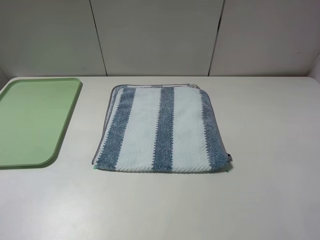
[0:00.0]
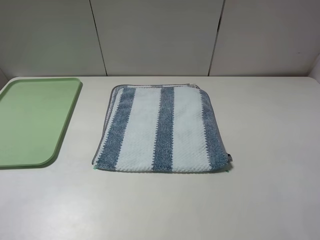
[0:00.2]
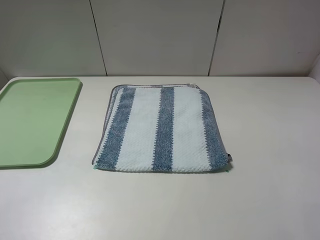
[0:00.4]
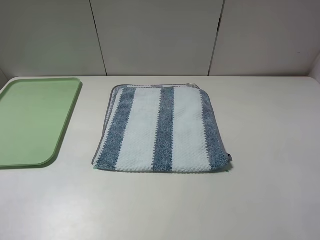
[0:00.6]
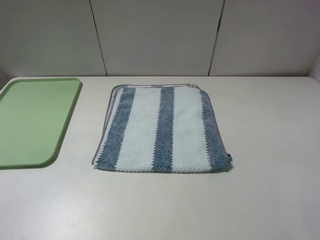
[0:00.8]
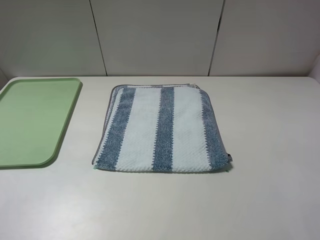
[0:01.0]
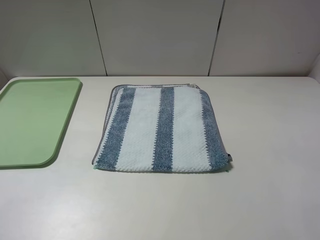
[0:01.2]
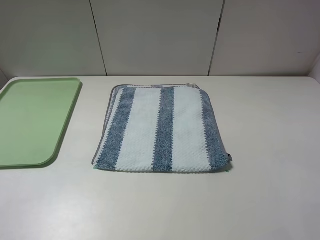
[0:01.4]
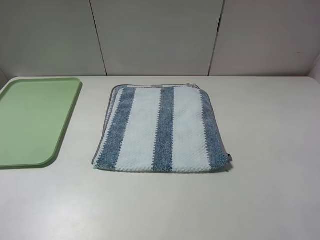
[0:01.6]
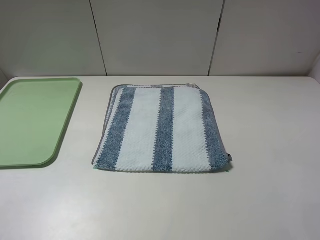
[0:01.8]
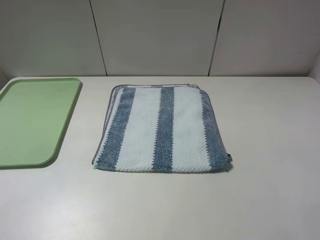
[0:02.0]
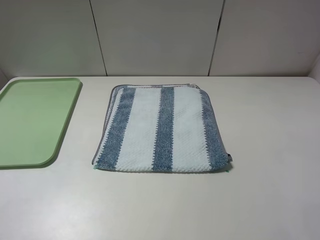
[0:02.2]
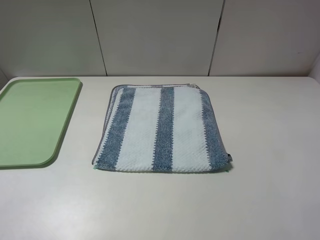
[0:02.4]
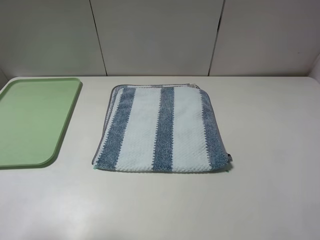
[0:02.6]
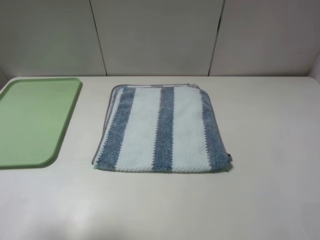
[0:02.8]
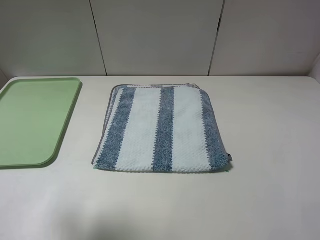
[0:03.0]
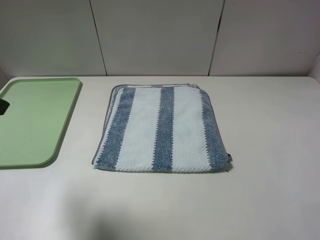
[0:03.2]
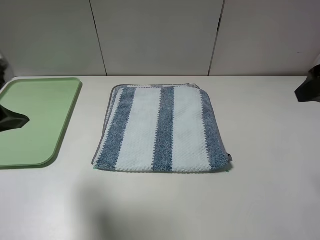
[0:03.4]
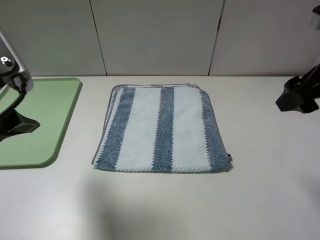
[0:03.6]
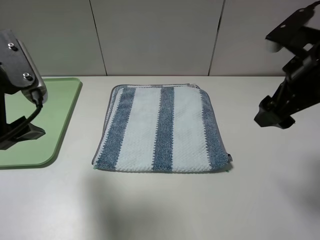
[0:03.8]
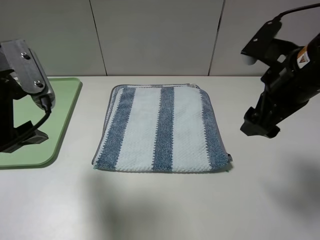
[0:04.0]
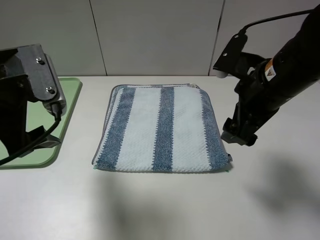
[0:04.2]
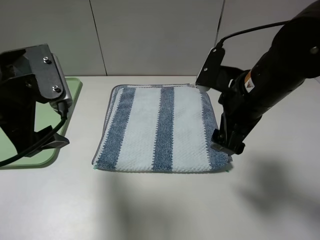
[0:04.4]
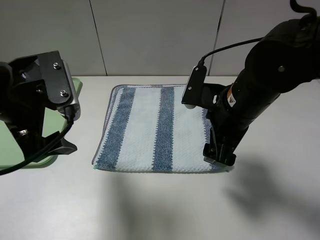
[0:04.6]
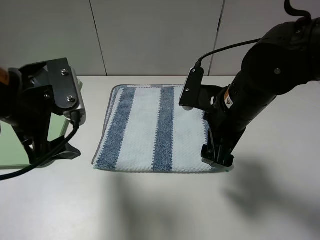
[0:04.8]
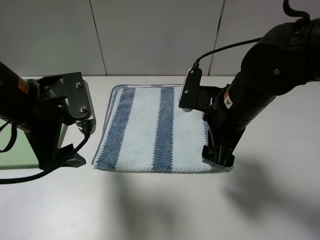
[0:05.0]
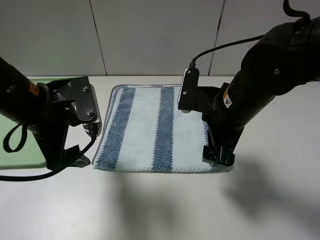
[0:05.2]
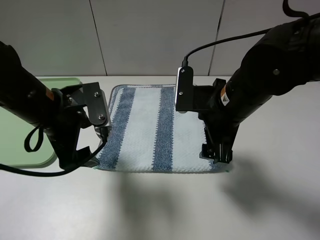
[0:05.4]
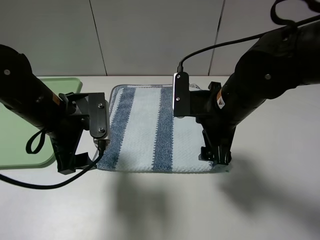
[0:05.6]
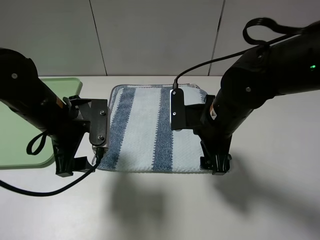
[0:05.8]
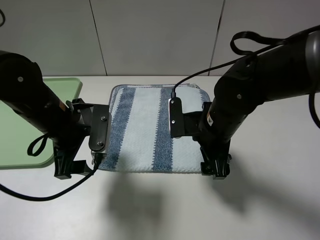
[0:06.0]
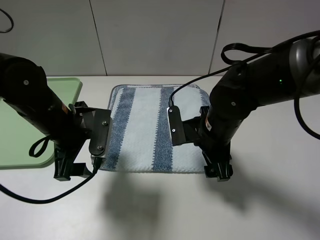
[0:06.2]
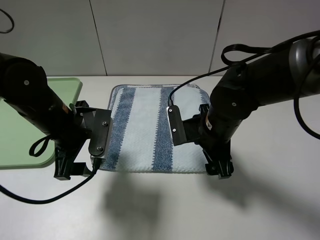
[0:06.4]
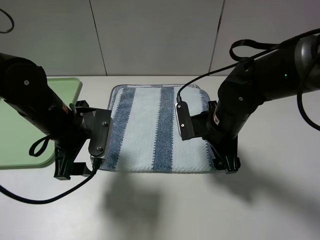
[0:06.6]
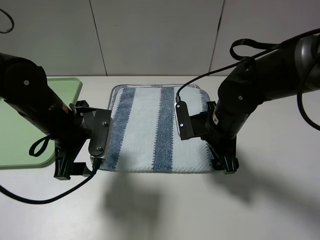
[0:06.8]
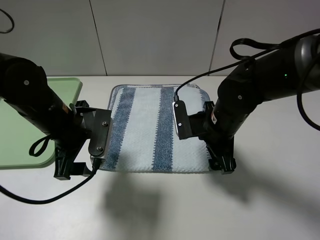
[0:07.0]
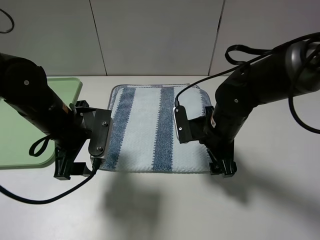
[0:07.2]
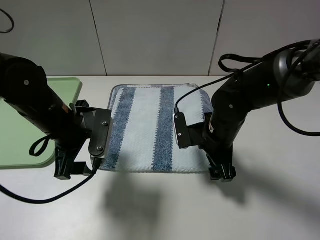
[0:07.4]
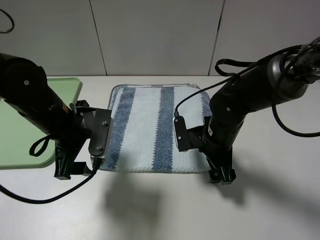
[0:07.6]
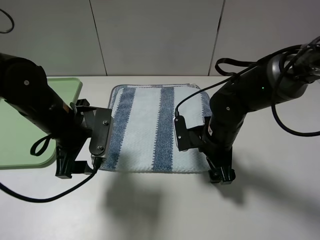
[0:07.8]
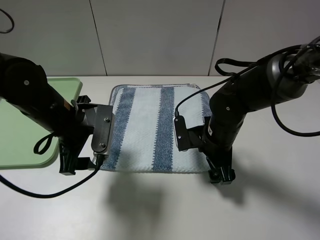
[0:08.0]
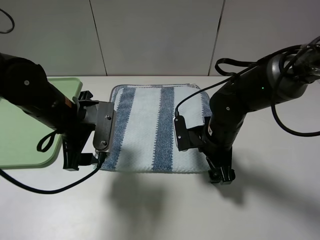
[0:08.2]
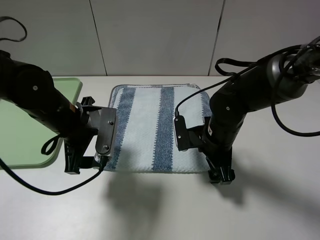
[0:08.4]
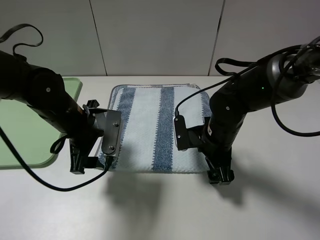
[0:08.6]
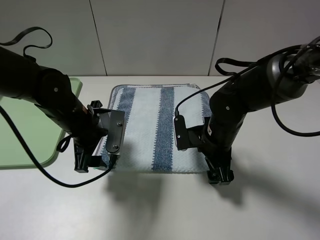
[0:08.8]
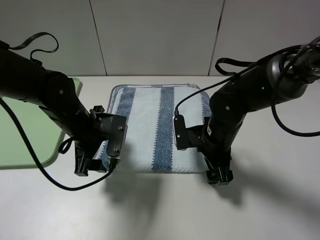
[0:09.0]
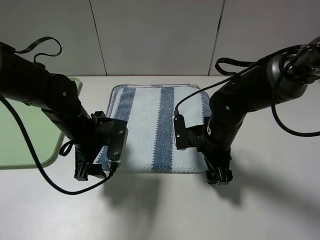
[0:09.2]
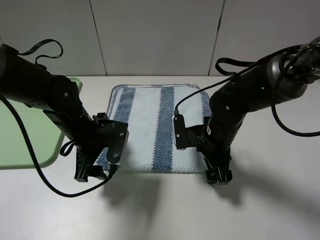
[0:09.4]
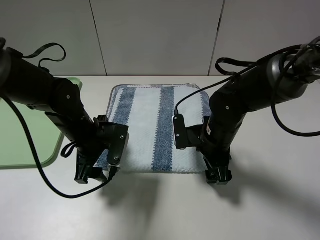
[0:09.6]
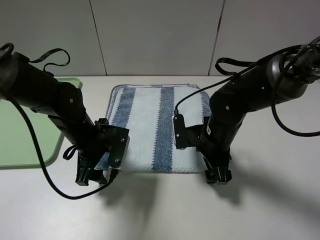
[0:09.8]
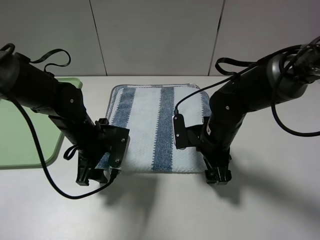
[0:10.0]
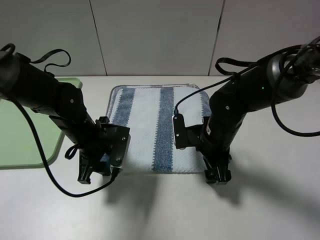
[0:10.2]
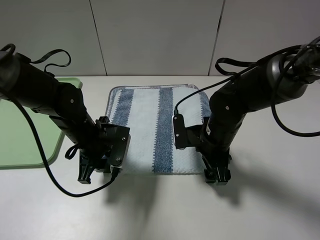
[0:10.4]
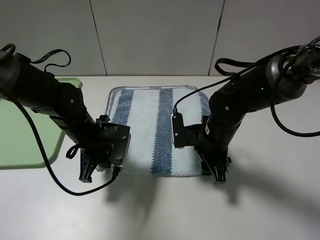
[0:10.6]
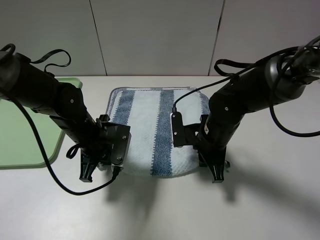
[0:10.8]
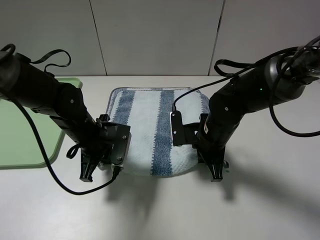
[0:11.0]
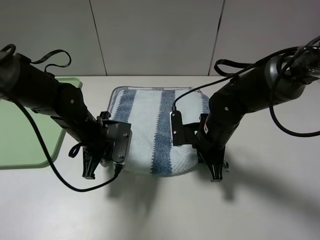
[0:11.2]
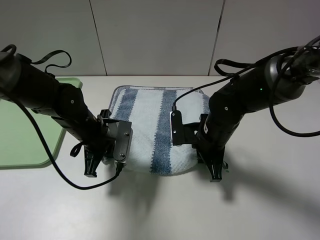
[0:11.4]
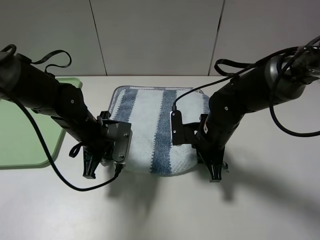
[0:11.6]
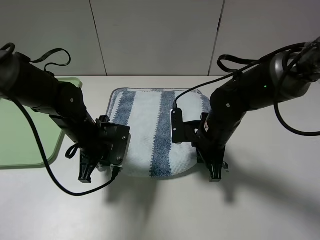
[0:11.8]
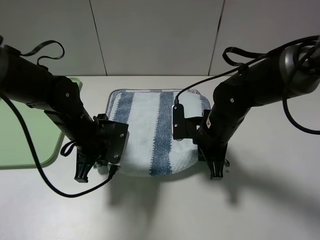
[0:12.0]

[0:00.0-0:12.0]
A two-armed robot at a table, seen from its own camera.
Step, 0:00.0 to 0:11.4: Grasp the blue white towel with the left gripper.
0:00.0 to 0:01.6: The two grippers keep their place.
0:01.6 to 0:03.0: The left gripper is displaced forward and upward by some 15 cm, while the right gripper moves forward, some 15 cm.
0:03.0 to 0:04.4: The right gripper heads to the left, downward and forward, covering some 20 cm; the left gripper is displaced to the right, downward and forward by about 15 cm.
0:04.4 to 0:06.0: Both grippers move downward, roughly 10 cm.
0:06.0 to 0:07.6: The right gripper shifts by about 5 cm.
0:07.6 to 0:09.0: The left gripper changes place by some 5 cm.
0:09.0 to 0:10.4: The left gripper closes its fingers.
0:10.4 to 0:12.0: The right gripper closes up. The left gripper closes.

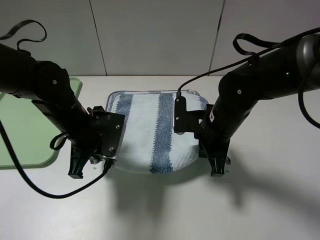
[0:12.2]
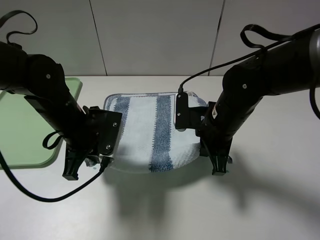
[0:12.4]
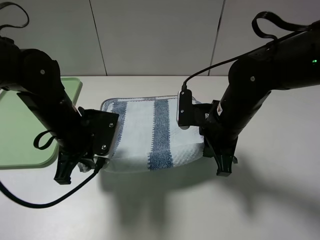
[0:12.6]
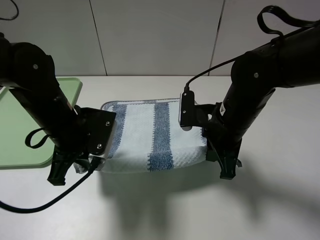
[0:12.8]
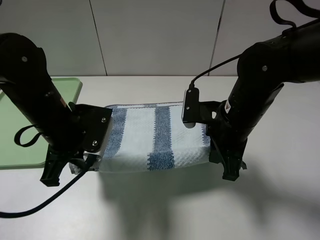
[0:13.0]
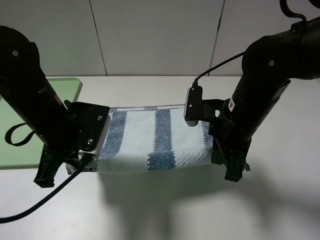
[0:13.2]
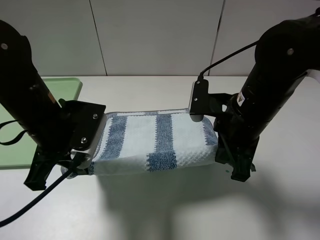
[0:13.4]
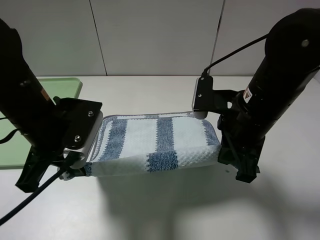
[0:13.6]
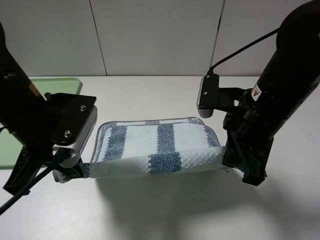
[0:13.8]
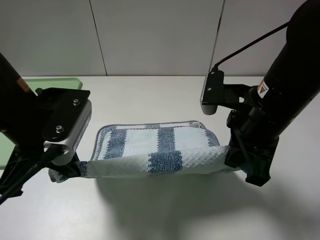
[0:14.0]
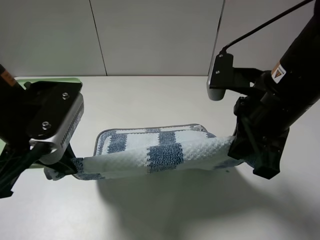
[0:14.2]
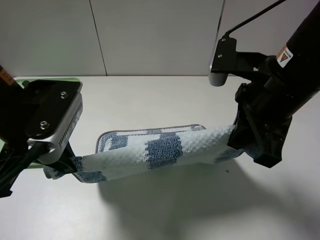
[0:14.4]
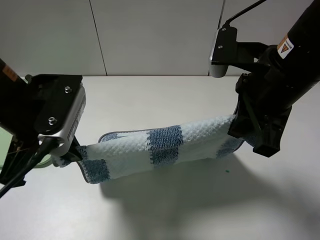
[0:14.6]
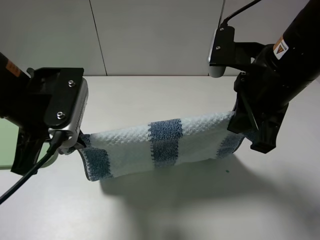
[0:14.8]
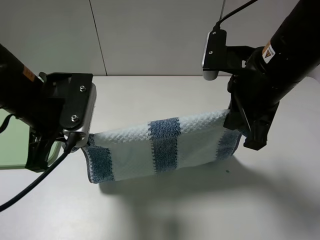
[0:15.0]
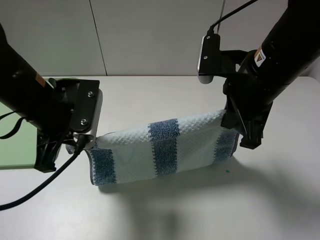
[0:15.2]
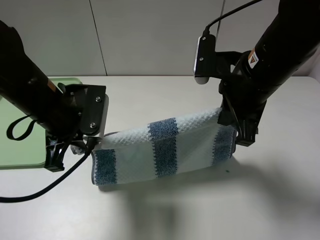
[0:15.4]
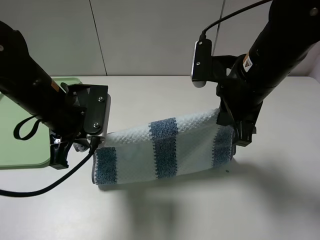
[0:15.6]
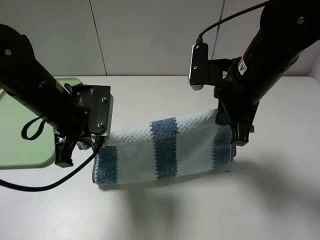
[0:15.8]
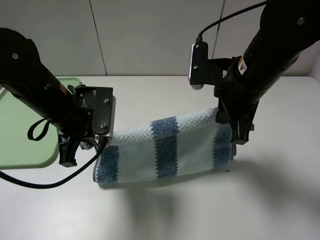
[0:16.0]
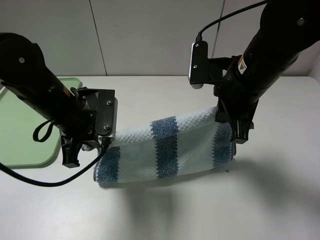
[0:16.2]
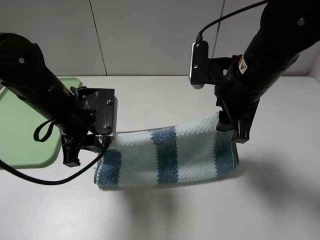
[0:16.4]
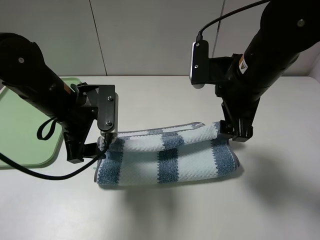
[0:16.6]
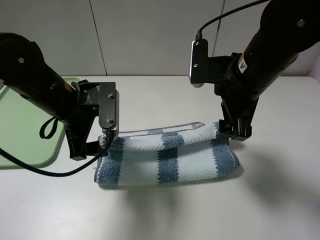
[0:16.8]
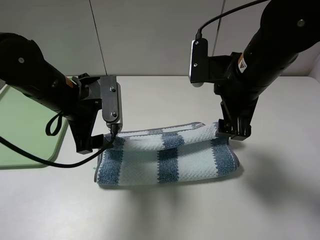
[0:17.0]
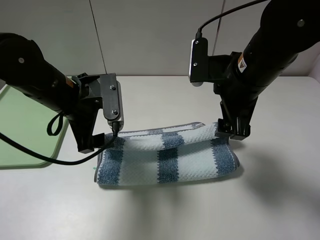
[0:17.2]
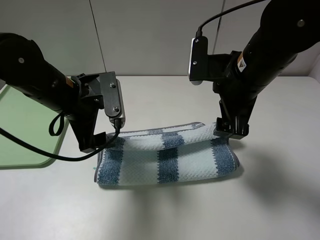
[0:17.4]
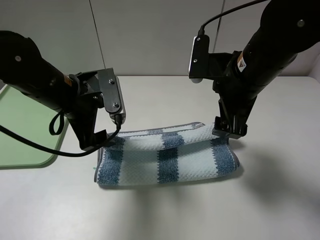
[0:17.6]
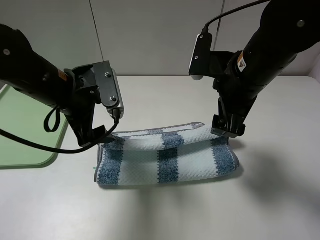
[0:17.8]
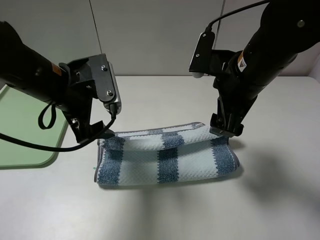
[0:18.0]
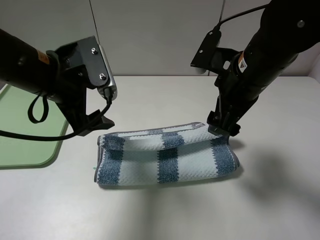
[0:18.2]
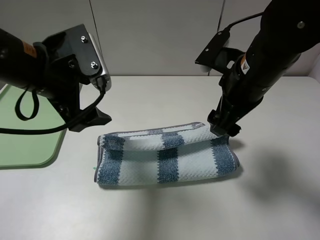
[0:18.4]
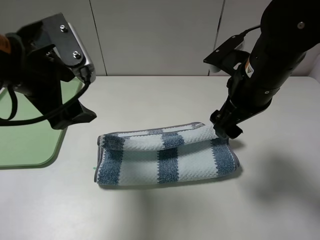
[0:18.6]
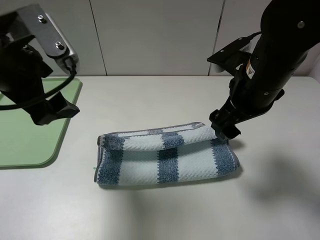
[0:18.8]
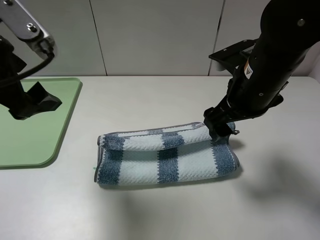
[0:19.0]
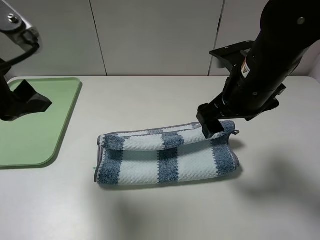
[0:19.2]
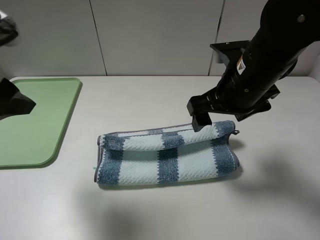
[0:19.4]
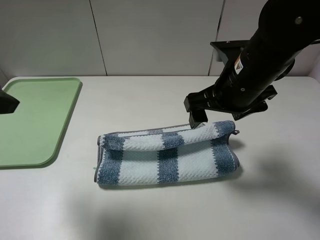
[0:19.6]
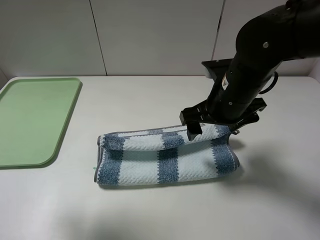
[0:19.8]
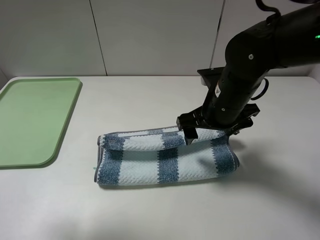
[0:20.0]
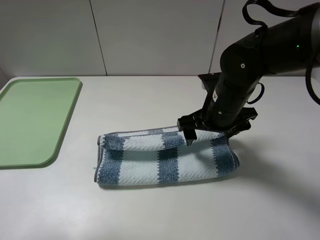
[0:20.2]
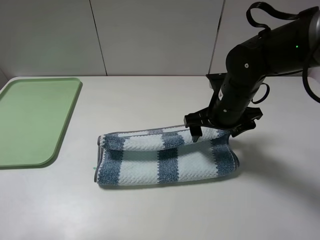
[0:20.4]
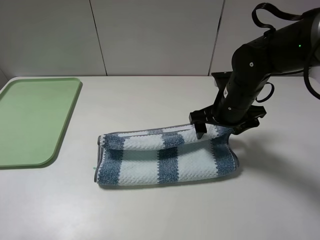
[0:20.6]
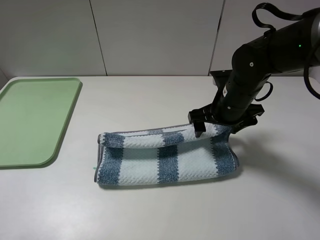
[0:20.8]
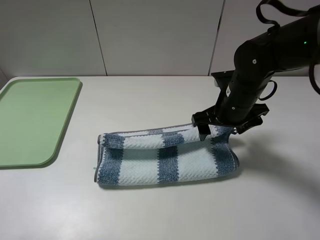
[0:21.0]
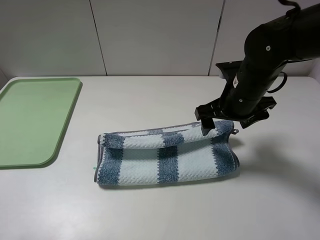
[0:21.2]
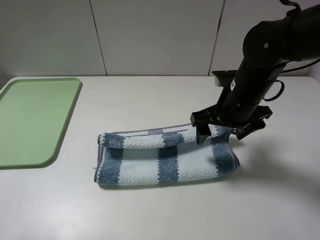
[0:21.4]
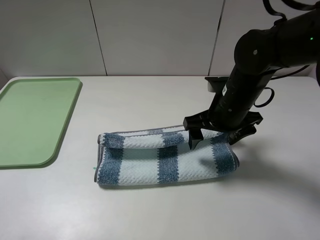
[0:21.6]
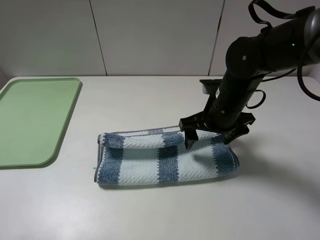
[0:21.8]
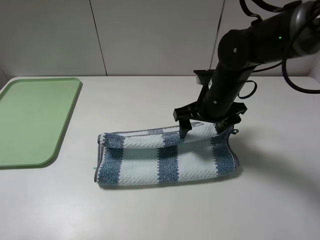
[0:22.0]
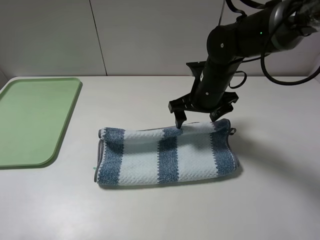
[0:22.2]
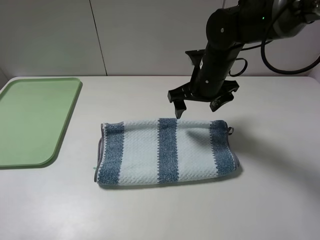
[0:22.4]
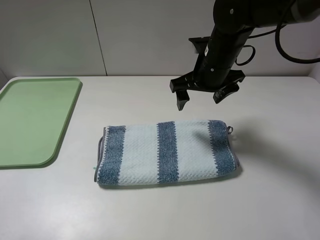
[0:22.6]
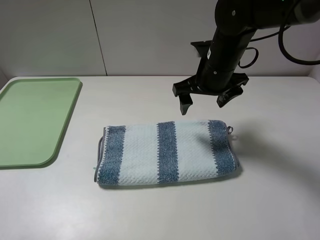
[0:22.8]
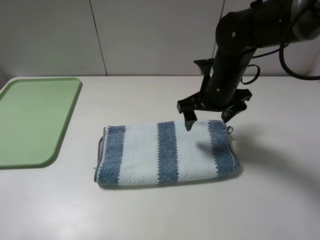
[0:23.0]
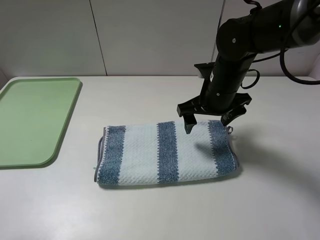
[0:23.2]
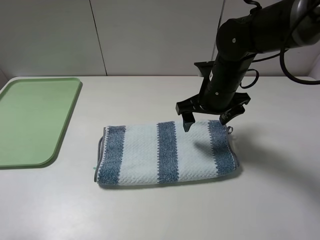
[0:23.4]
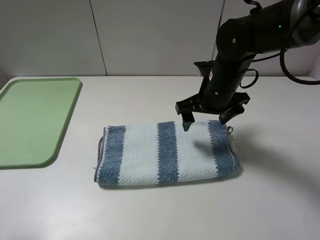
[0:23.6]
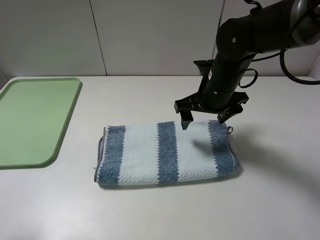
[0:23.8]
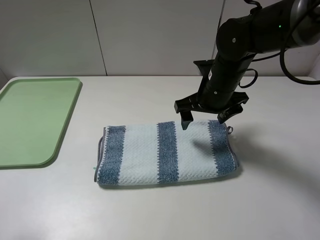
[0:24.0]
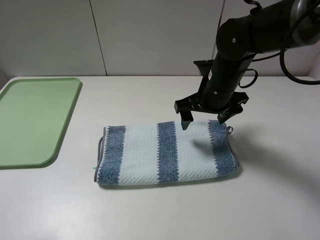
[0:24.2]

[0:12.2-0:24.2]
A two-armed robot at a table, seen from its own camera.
Step, 0:12.2 to 0:18.0: Fold the blue white towel upwards with the left gripper.
0:12.2 to 0:13.8: The grippers both shift upward and backward by approximately 10 cm.
0:15.2 to 0:16.6: The right gripper opens. The left gripper opens up.
0:16.6 to 0:18.2: The left gripper shifts some 5 cm upward.
0:18.2 to 0:19.8: The left gripper is displaced backward, to the left and upward by approximately 20 cm.
0:19.8 to 0:21.2: The left gripper is displaced backward by roughly 5 cm.
0:21.2 to 0:22.6: The right gripper shifts some 5 cm forward.
0:22.6 to 0:24.2: The left gripper moves downward, approximately 10 cm.
